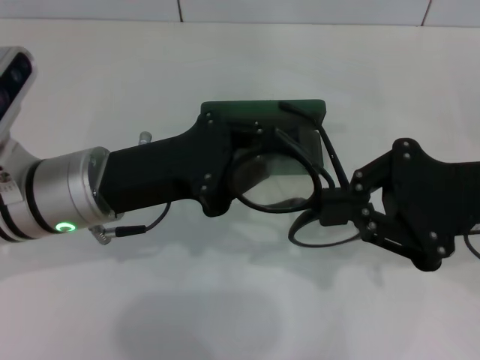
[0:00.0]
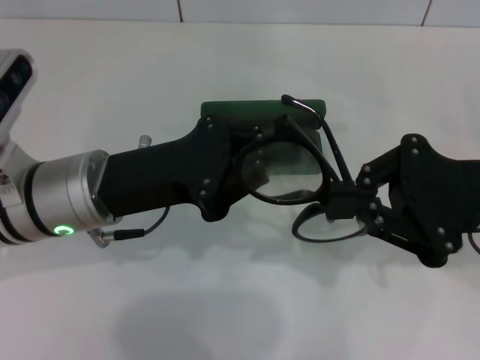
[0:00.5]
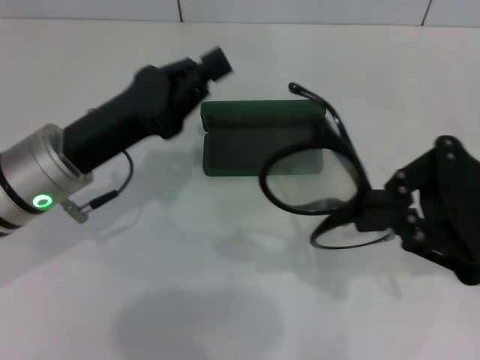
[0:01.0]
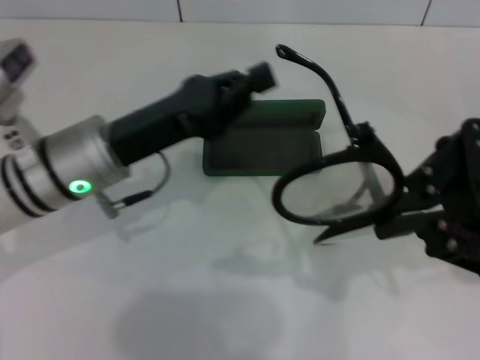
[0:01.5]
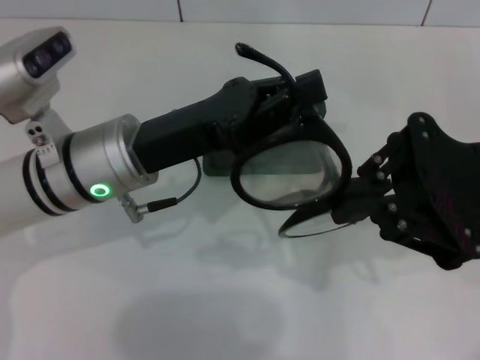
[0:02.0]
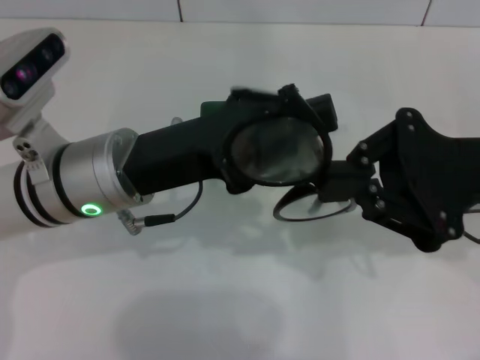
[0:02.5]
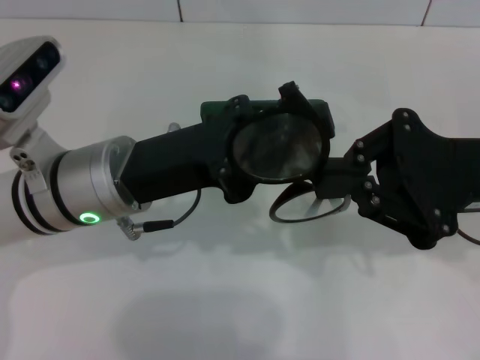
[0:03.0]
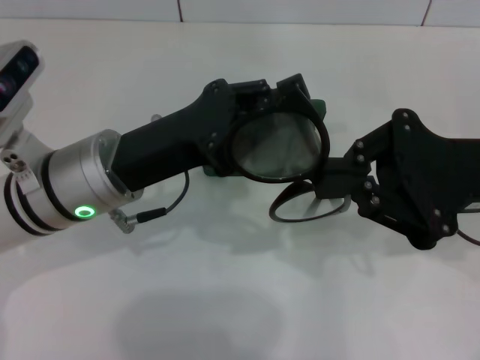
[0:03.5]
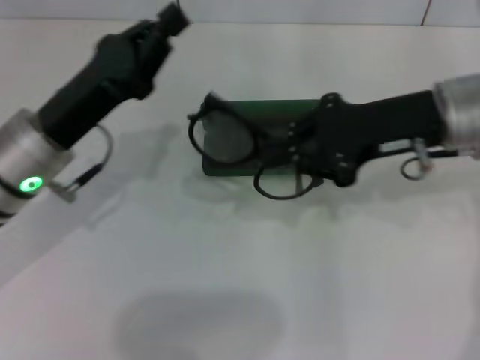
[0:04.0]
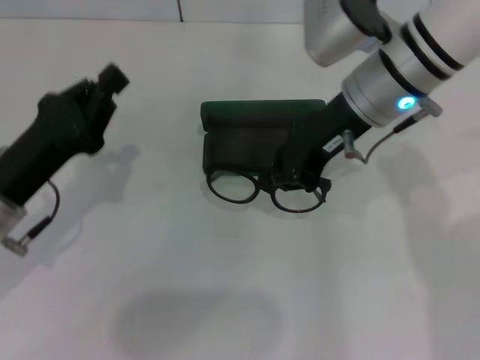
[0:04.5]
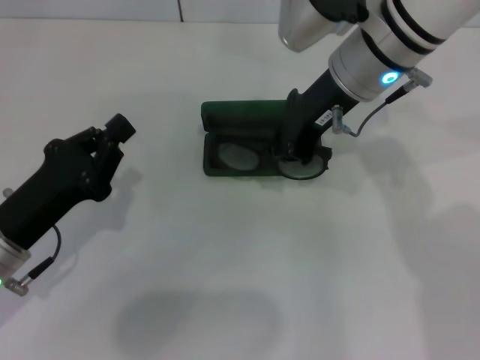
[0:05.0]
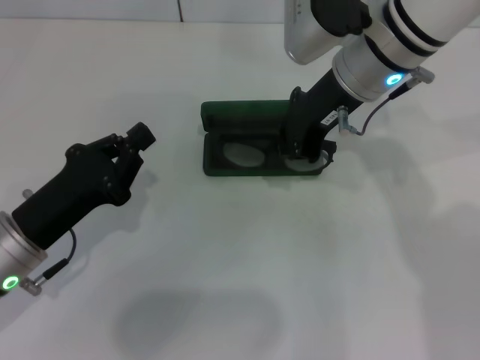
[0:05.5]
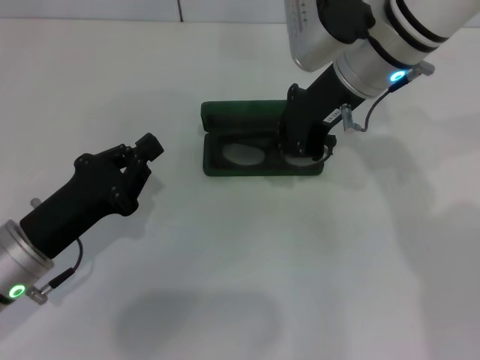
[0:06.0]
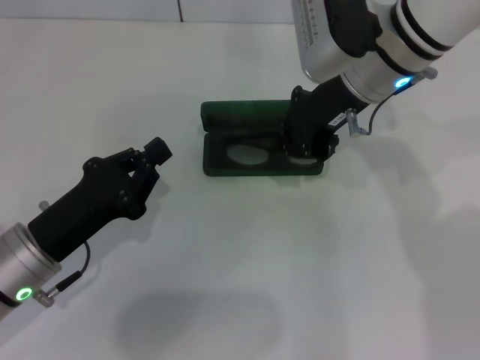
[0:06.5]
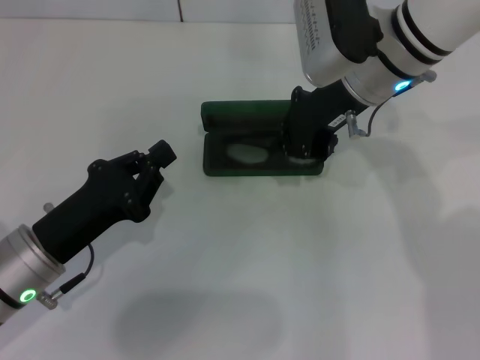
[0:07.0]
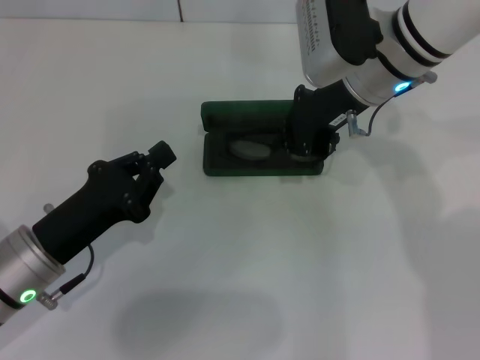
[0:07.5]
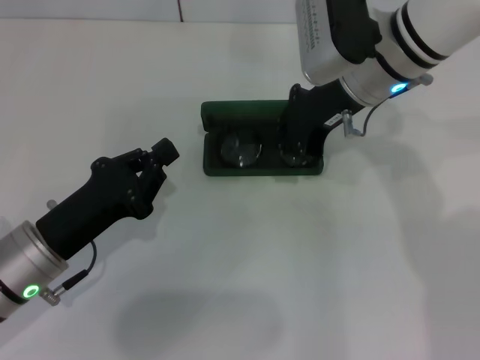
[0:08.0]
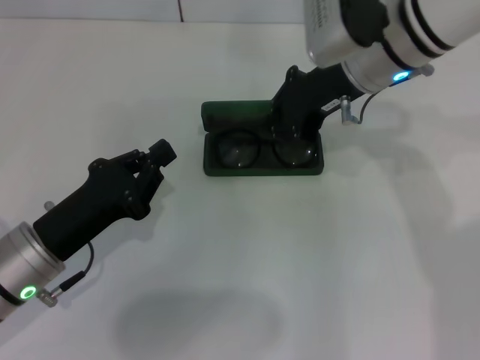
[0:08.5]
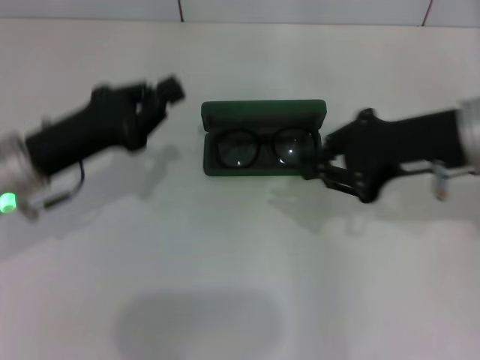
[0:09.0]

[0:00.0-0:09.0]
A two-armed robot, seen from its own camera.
Step, 0:00.0 to 0:03.0: Fold the frame with your left hand.
Step, 0:03.5 to 0:07.5: Put the glasses into the case with your right hand.
0:02.0 to 0:04.5: The left gripper moves to the left, approximately 10 cm, while the right gripper travels to the left and forward by some 15 cm.
0:04.5 to 0:07.0: The left gripper moves roughly 5 cm.
0:07.0 to 0:09.0: The right gripper is displaced to the right and backward by roughly 15 cm. The left gripper is displaced forward and upward by about 10 cm.

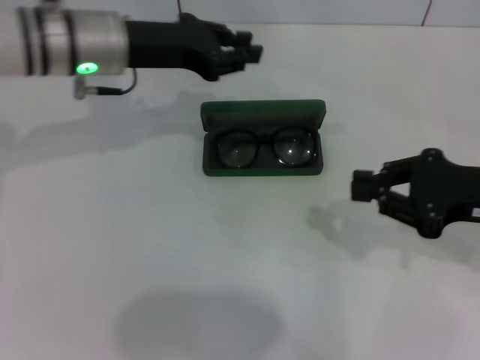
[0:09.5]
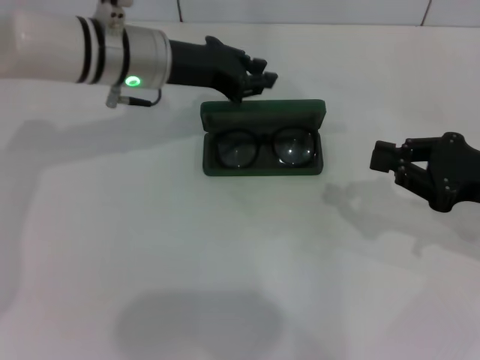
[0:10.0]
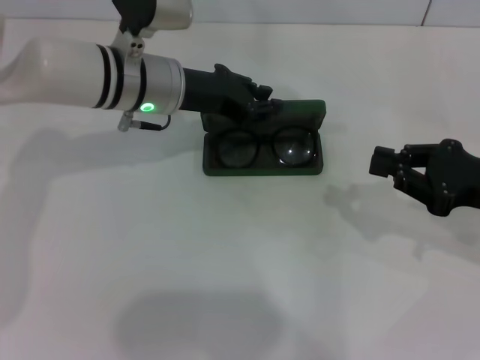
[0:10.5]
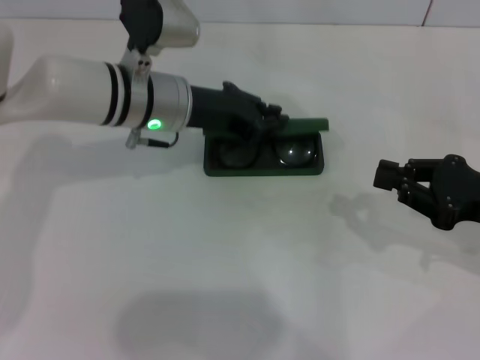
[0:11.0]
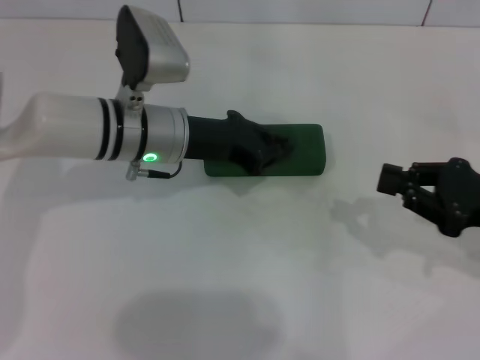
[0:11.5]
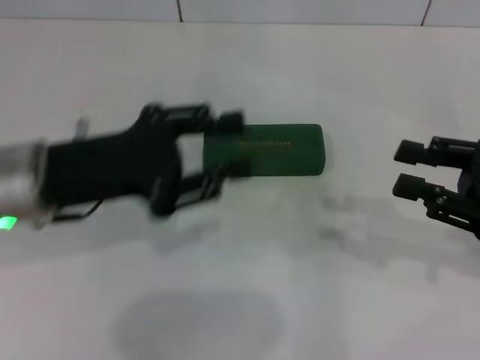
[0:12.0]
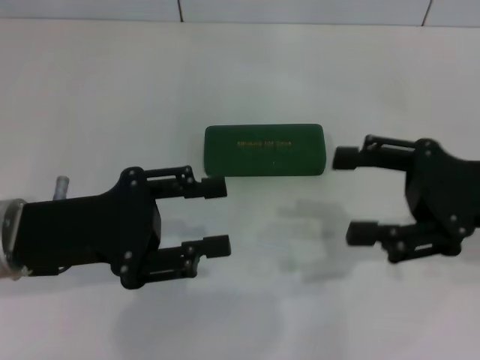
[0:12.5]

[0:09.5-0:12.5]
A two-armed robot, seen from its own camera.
0:09.5 to 0:11.0: The left gripper goes roughly 5 cm downward and to the right.
0:11.0 to 0:12.5: The right gripper goes approximately 5 cm upward, and opens; the left gripper shifts roughly 20 cm backward and to the left, and opens its fingers.

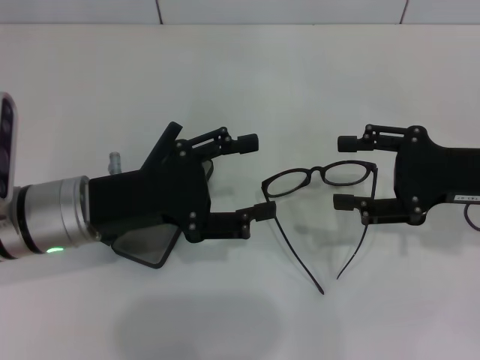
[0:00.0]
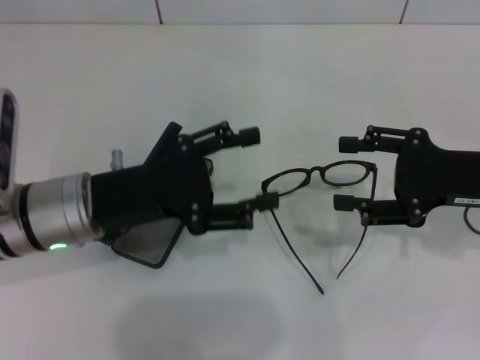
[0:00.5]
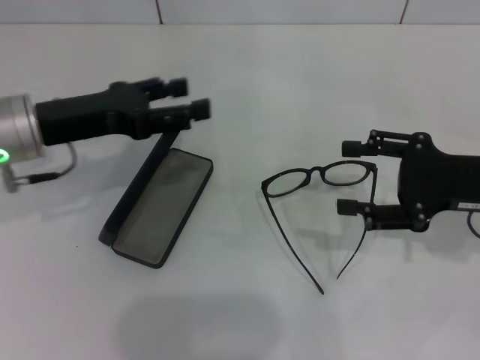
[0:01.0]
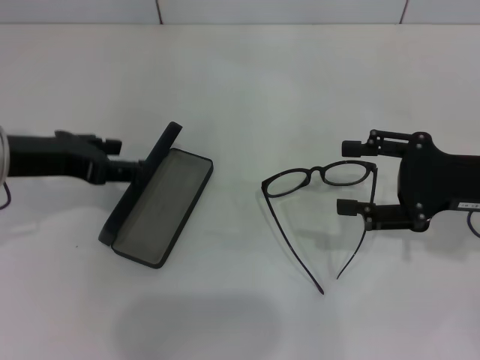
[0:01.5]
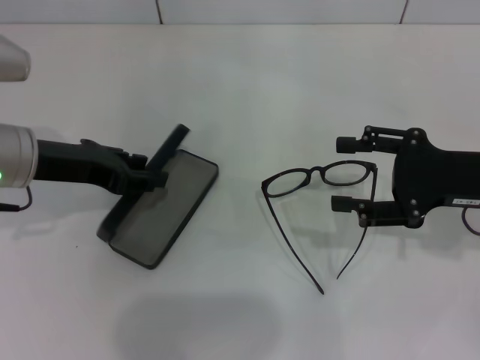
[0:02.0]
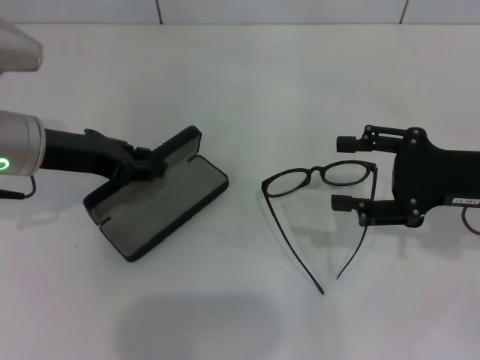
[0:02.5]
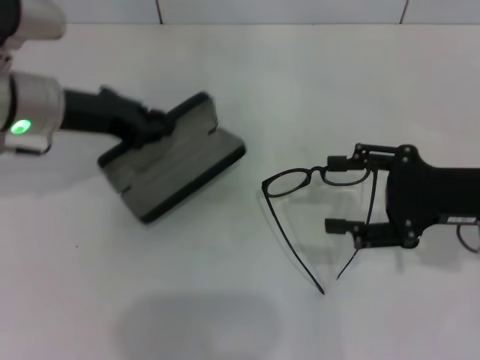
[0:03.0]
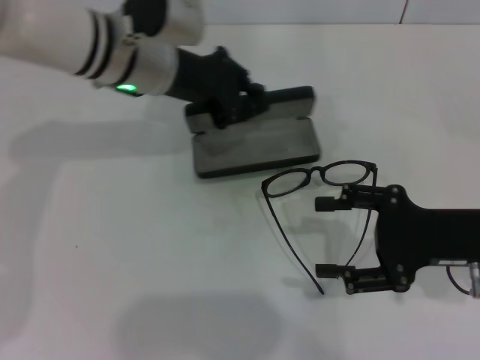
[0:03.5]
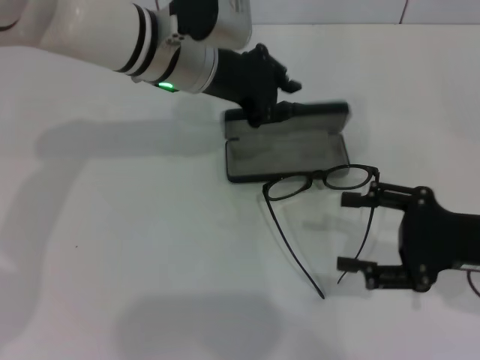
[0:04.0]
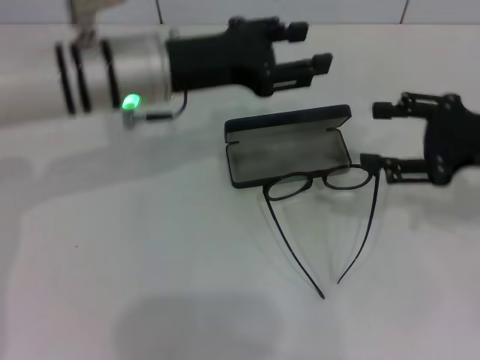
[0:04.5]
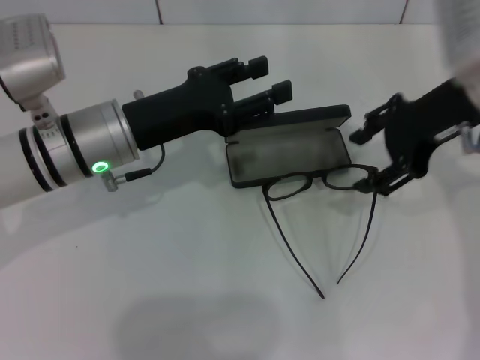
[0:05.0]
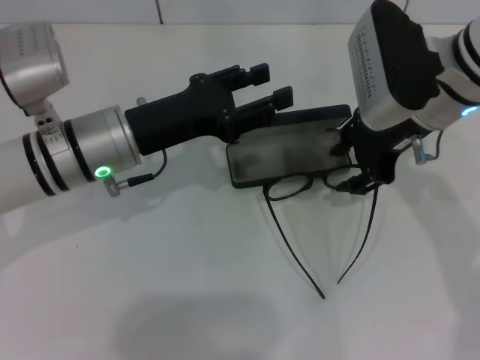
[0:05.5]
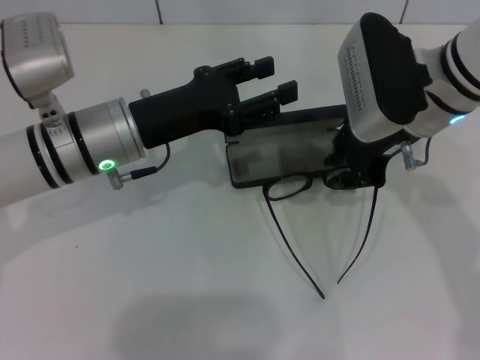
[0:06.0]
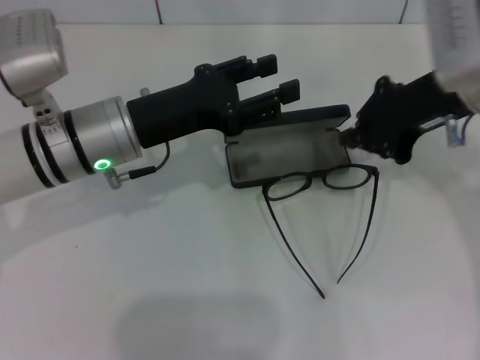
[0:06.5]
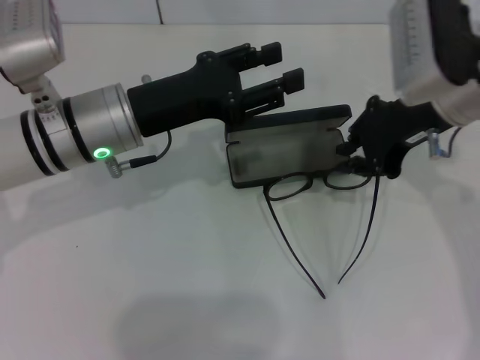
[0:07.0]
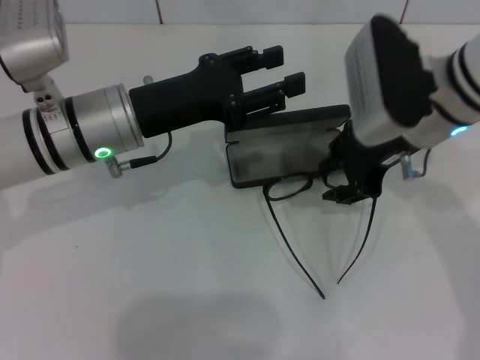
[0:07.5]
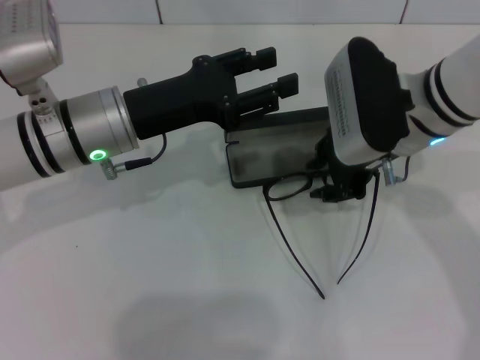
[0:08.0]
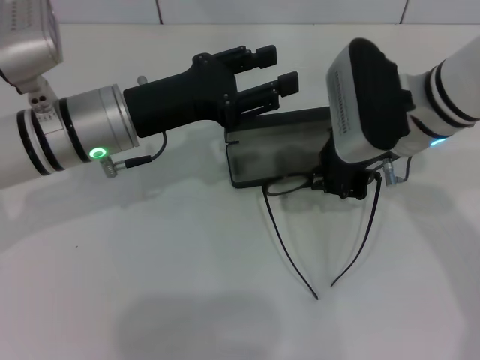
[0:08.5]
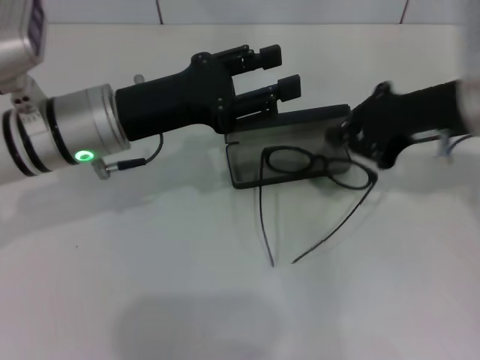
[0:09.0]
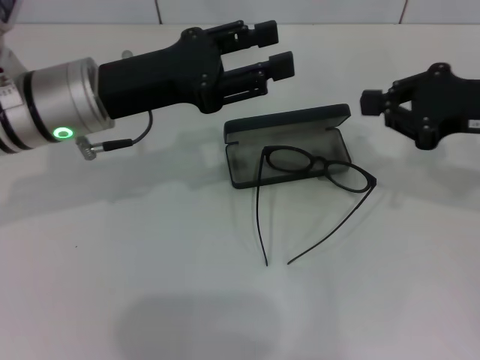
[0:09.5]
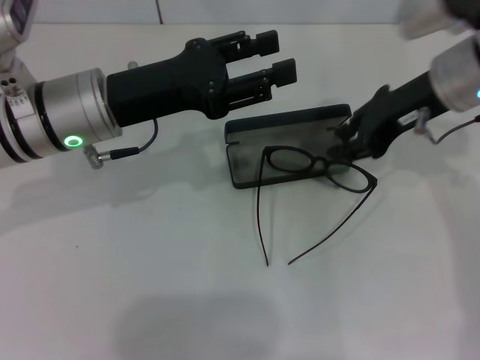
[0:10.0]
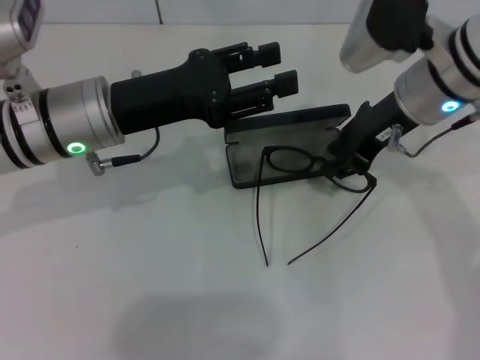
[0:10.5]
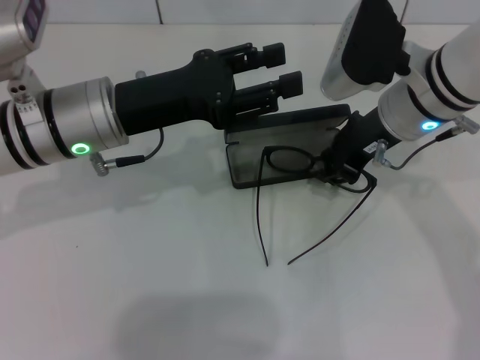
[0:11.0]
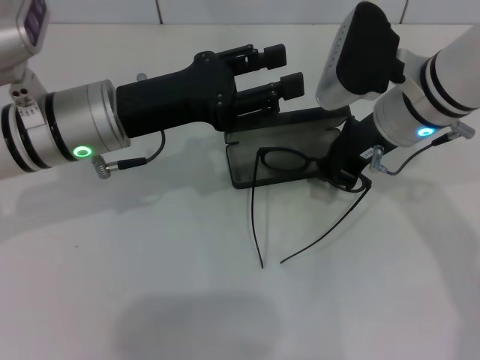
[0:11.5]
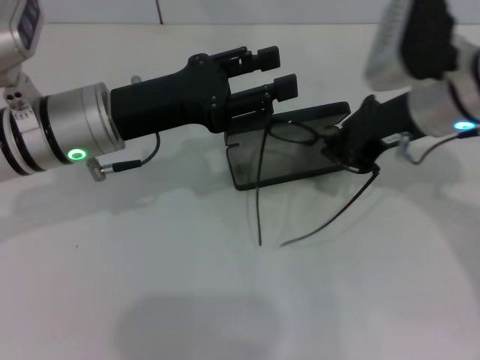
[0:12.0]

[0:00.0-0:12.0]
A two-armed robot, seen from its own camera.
Step, 0:00.0 to 0:02.5: Grab the glasses case with your left hand.
Step, 0:03.0 to 0:04.0: Place the glasses case in the center of the table with your left hand.
Step, 0:04.5 to 0:11.5: Grab the eyeglass frame with your right hand.
0:00.0 to 0:02.0: The left gripper goes about 5 cm to the left.
0:02.0 to 0:04.0: The right gripper changes place by about 5 cm. The left gripper is displaced to the right and forward by roughly 20 cm, and closes up.
0:04.0 to 0:06.0: The right gripper shifts some 20 cm to the left, forward and upward, and closes. Meanwhile the left gripper heads backward, to the left and downward, covering some 10 cm, and opens.
0:06.0 to 0:08.0: The right gripper closes, then reopens.
0:08.0 to 0:10.0: The right gripper reaches roughly 15 cm to the right, then returns.

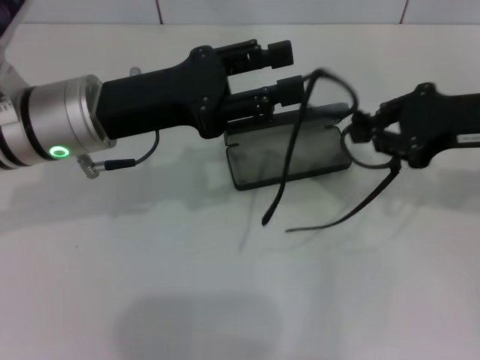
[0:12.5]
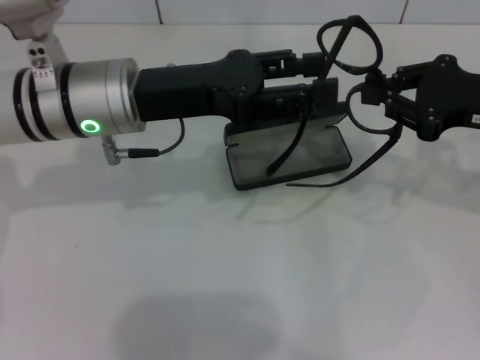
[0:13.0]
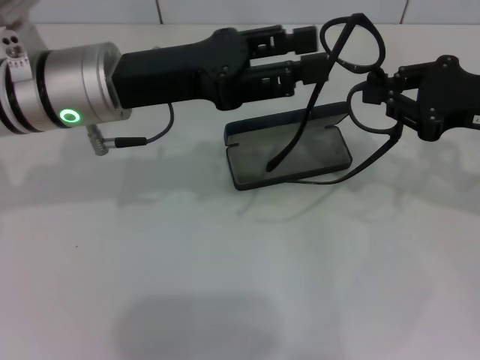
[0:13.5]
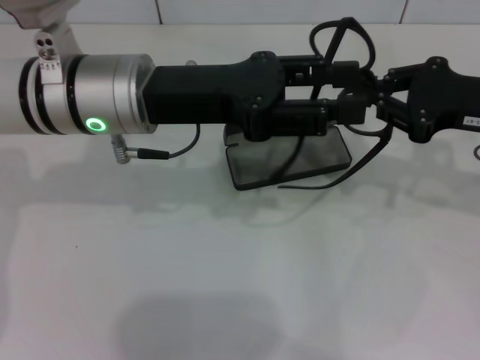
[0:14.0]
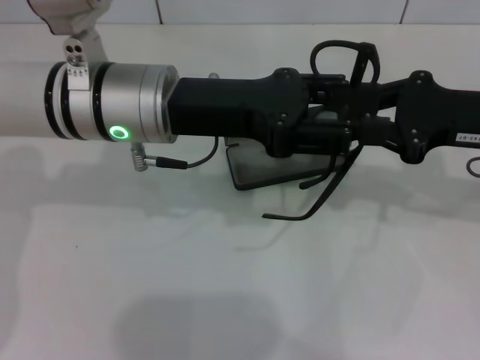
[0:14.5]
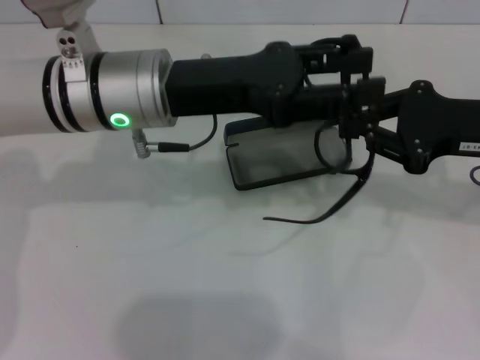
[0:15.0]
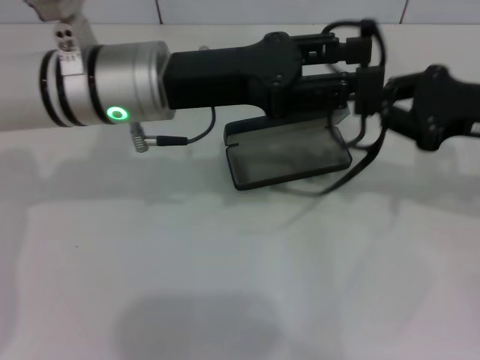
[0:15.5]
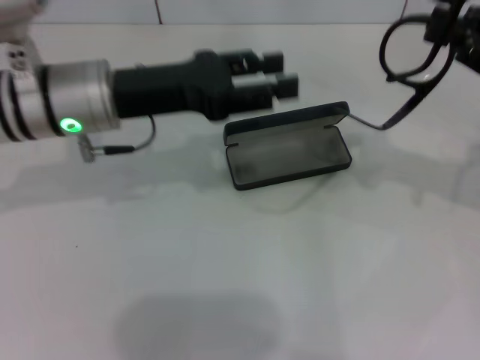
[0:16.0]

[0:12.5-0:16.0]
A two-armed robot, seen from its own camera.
0:12.5 to 0:14.5: The left gripper moves to the right, about 5 cm.
0:14.5 to 0:16.0: The left gripper shifts about 5 cm to the left; the right gripper heads to the right, covering some 5 cm.
